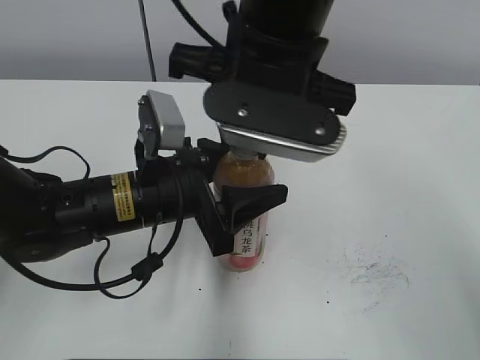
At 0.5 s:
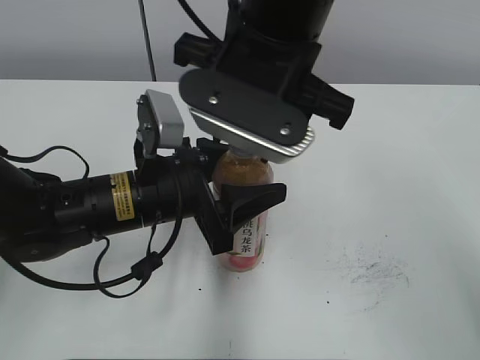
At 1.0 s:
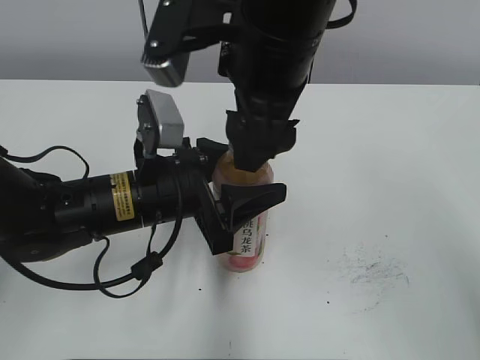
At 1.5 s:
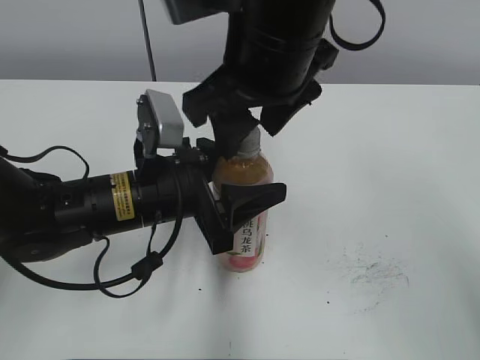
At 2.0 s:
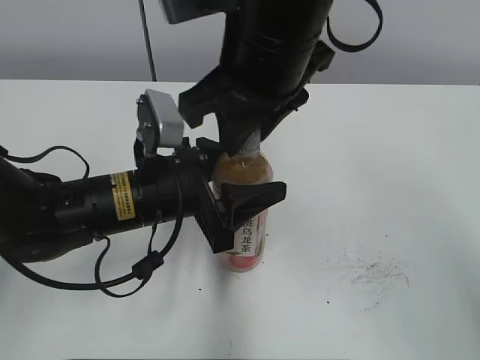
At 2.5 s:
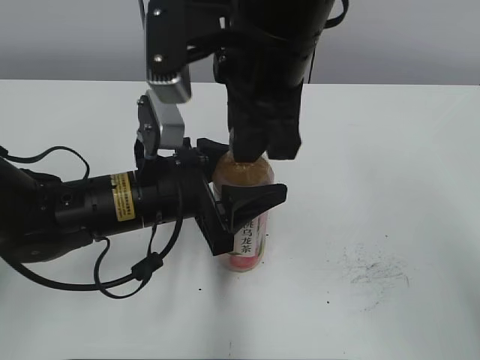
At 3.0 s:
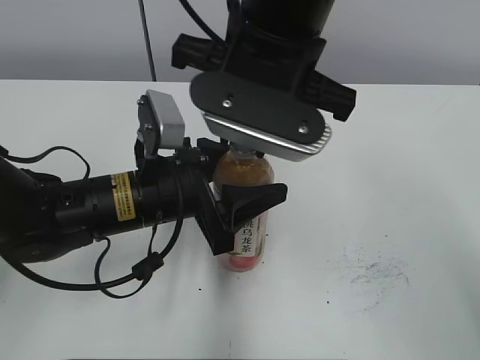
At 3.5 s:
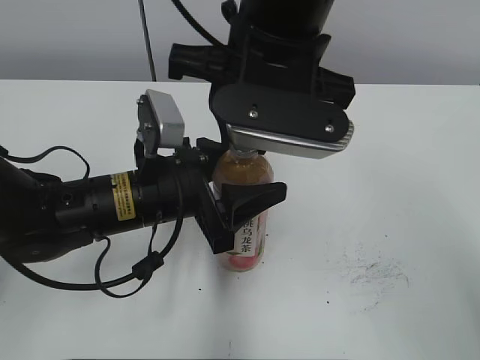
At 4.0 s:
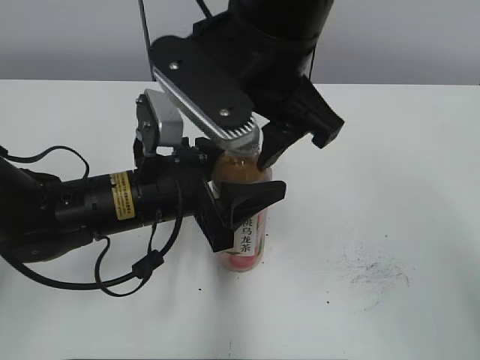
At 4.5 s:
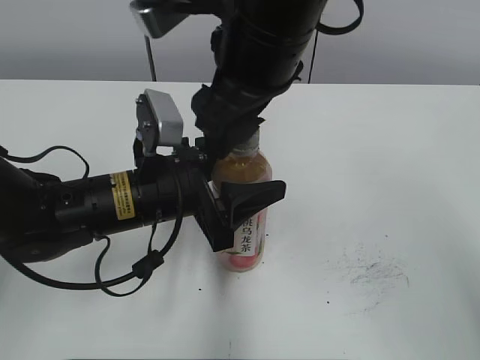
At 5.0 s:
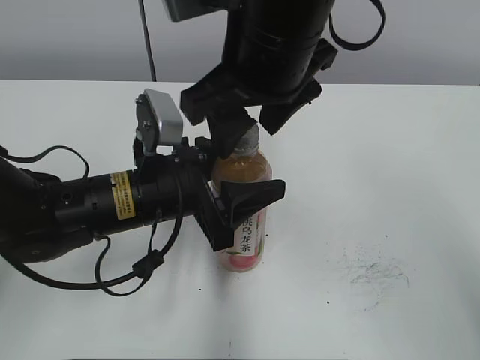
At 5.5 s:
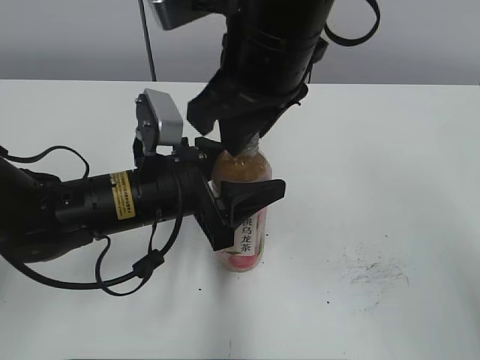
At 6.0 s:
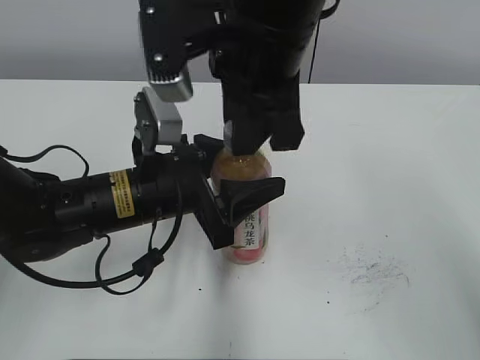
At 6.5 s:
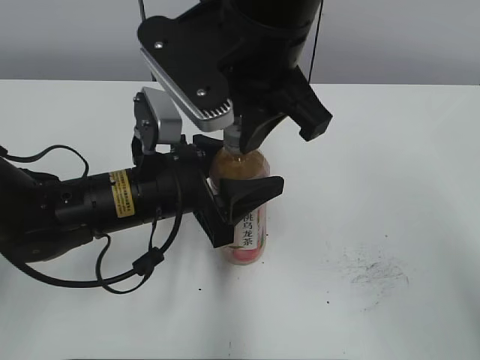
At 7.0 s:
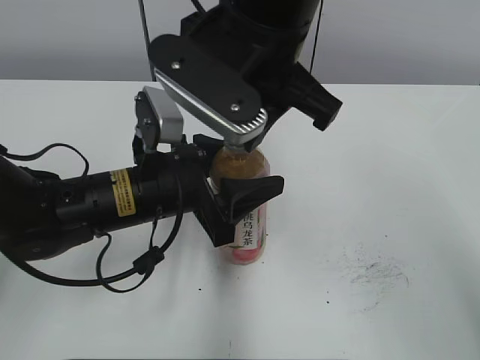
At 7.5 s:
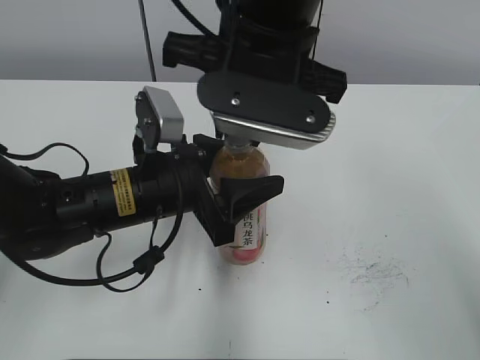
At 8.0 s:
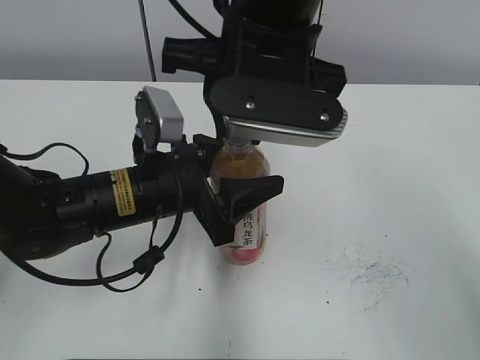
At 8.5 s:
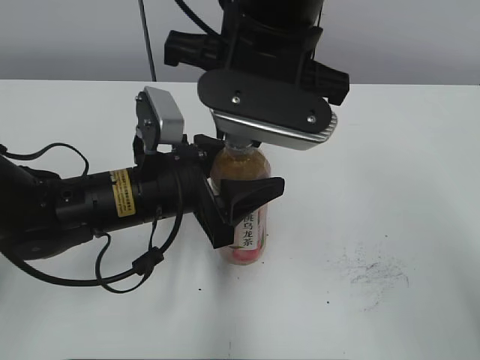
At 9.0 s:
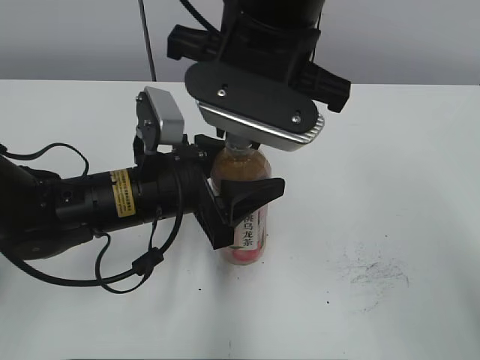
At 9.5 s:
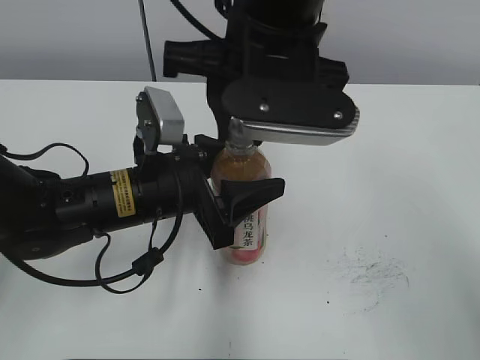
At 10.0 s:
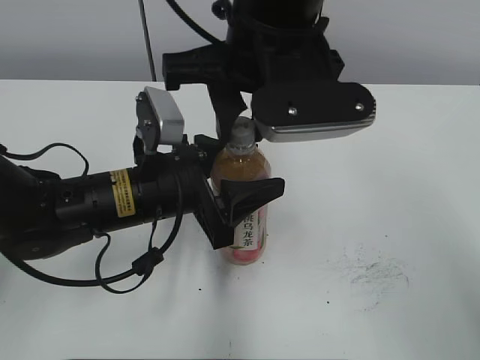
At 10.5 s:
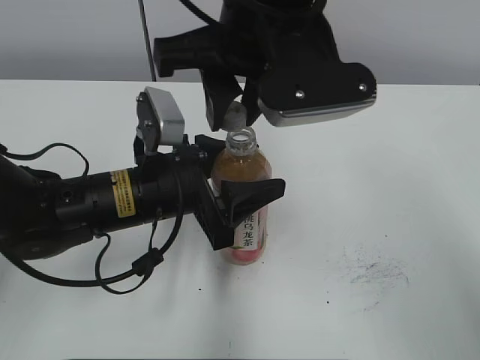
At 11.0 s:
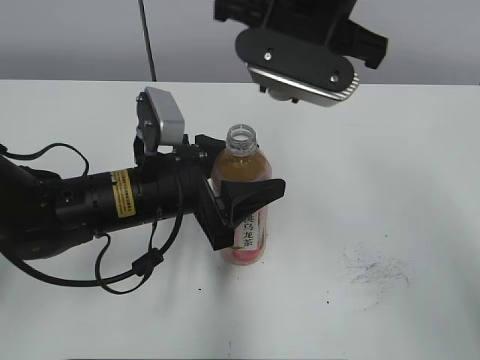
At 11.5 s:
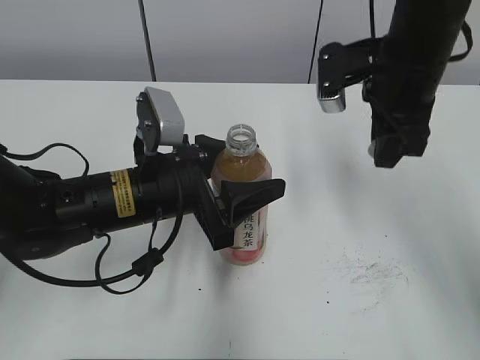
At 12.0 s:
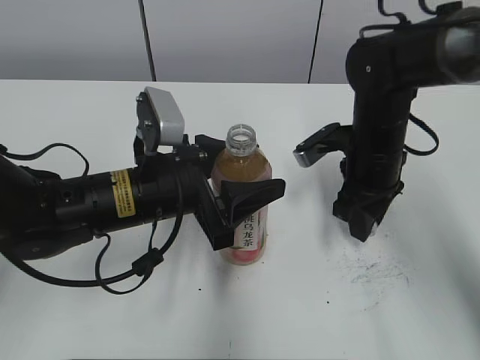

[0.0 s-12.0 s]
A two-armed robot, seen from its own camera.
Step, 0.0 to 10.0 s: Secure the Peach Oolong Tea with the left hand.
0.0 to 2.0 s: The right gripper opens, then closes once more.
2.0 to 4.0 s: The right gripper opens up.
4.0 to 6.0 s: The right gripper closes.
8.0 to 10.0 s: There are only small adjustments of the grippers.
10.0 to 12.0 s: The right gripper shifts approximately 25 cm downward, to the right and forward.

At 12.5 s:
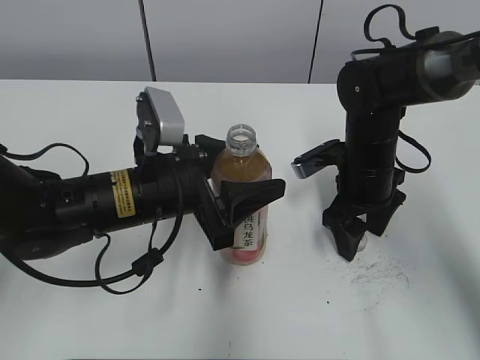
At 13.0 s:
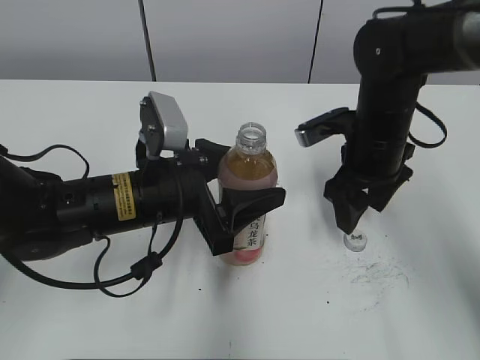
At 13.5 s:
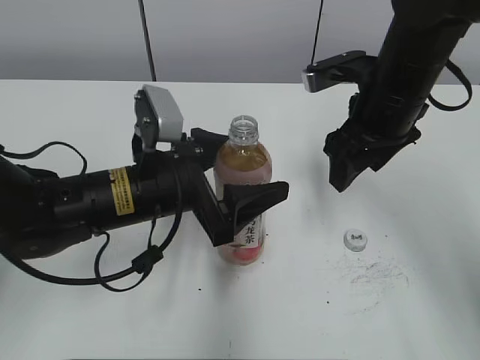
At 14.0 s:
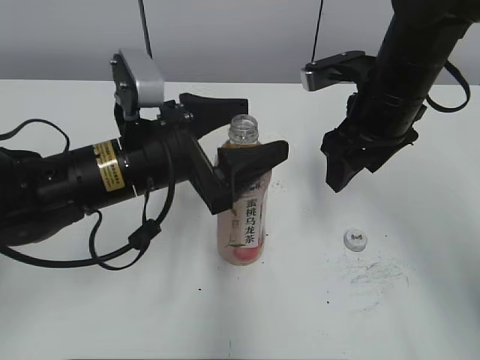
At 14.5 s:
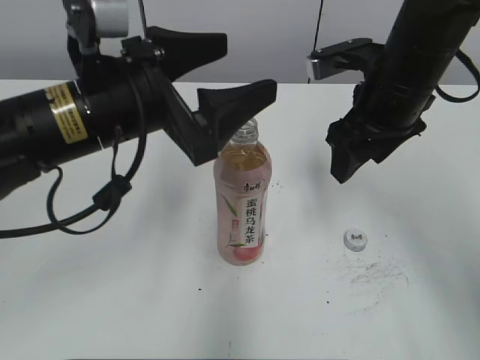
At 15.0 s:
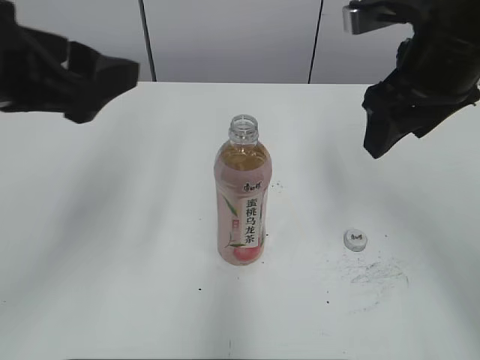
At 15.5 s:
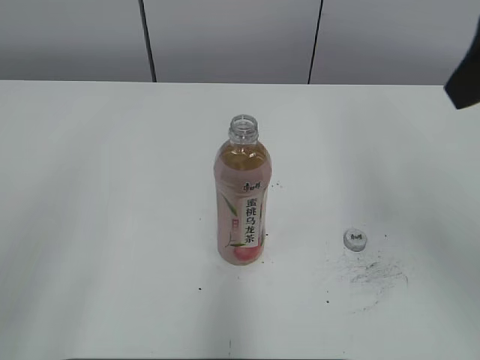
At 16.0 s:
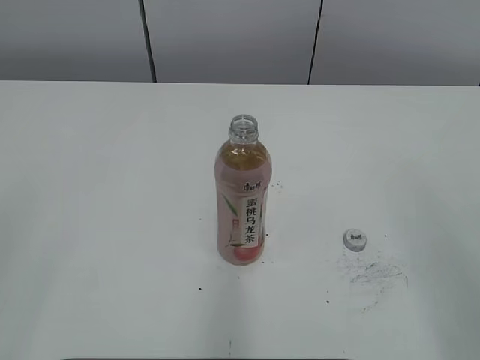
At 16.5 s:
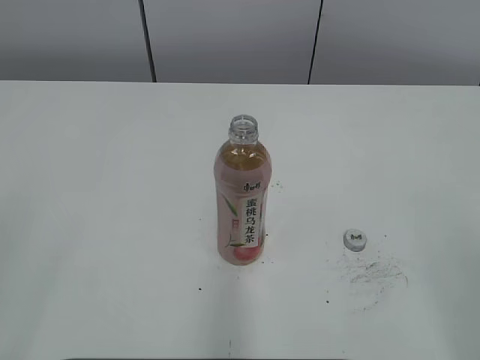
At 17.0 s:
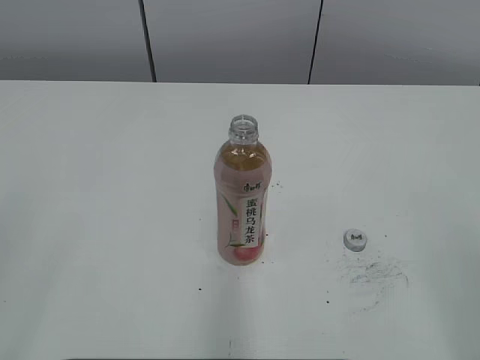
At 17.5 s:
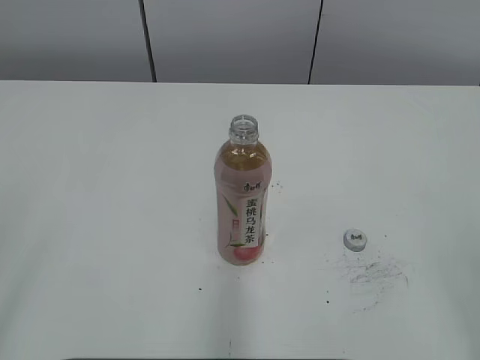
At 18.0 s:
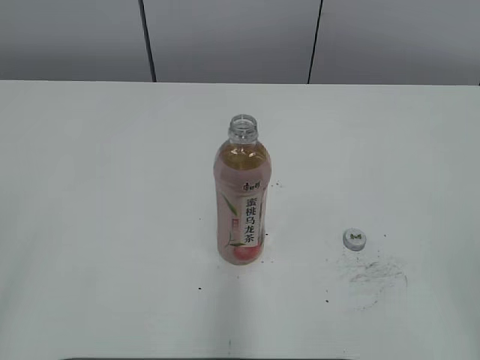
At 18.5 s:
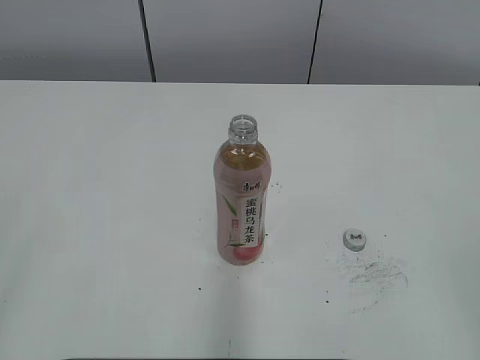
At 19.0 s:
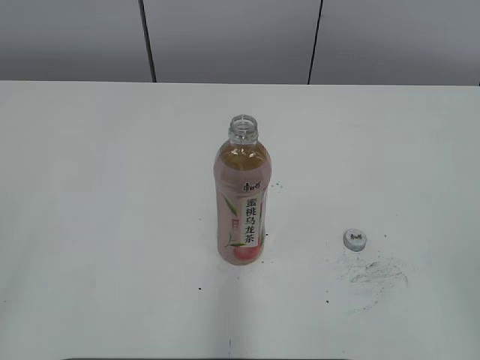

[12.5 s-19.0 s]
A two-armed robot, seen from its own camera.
12.5 to 14.5 s: The two grippers go about 10 cm upward. The left gripper opens.
14.5 to 17.0 s: The right gripper goes roughly 35 cm backward and to the right. Meanwhile the left gripper heads backward and to the left, covering about 30 cm.

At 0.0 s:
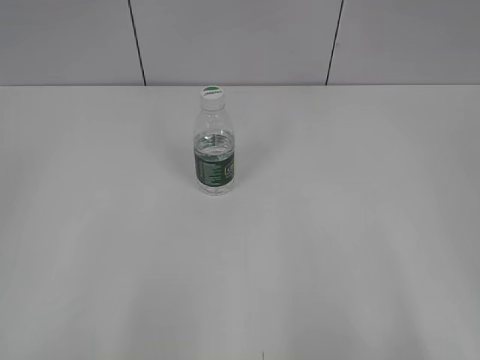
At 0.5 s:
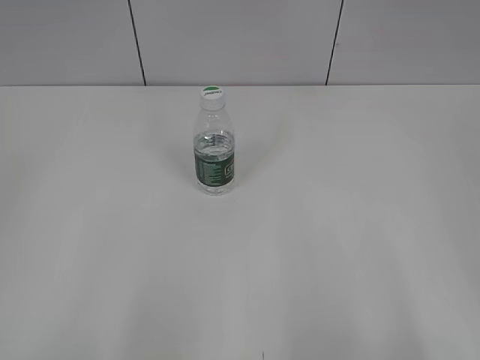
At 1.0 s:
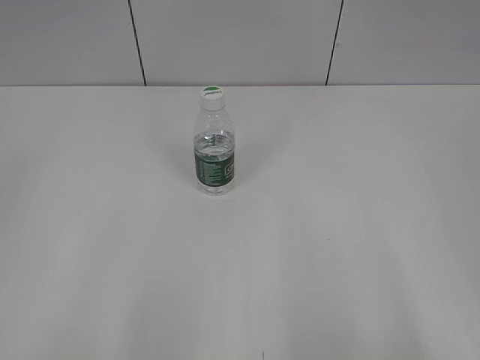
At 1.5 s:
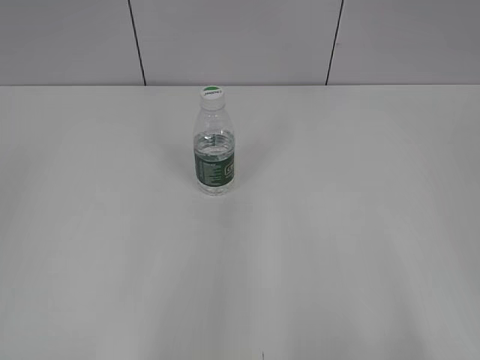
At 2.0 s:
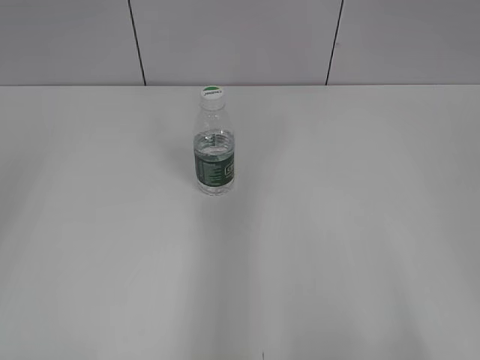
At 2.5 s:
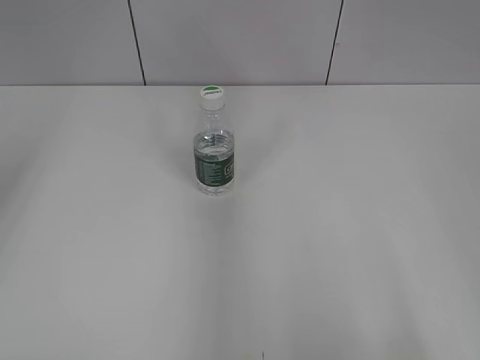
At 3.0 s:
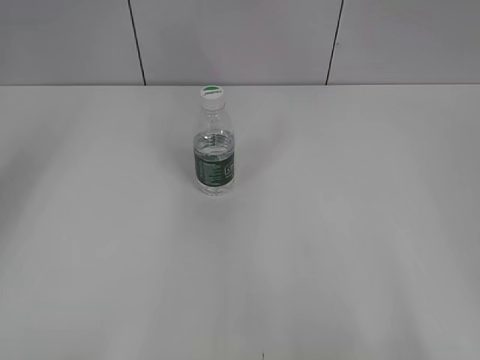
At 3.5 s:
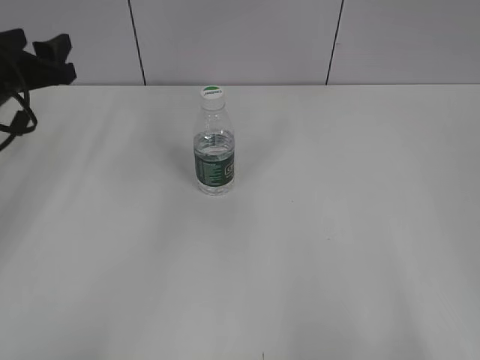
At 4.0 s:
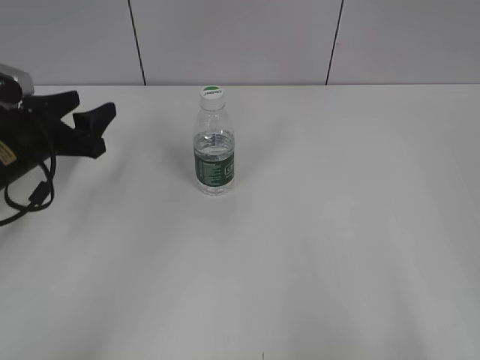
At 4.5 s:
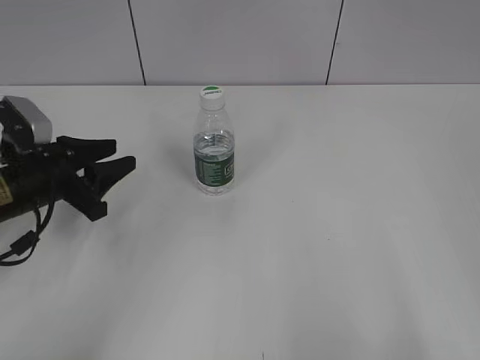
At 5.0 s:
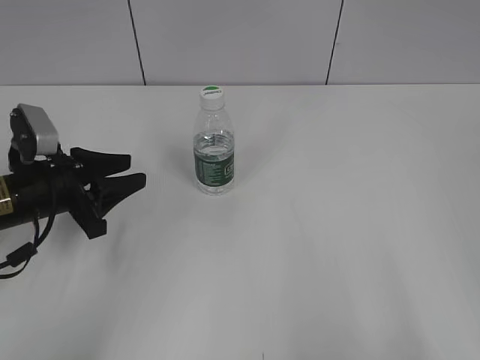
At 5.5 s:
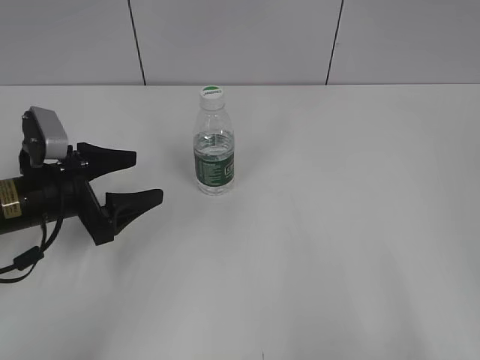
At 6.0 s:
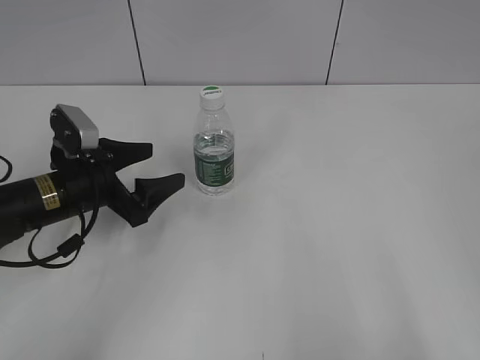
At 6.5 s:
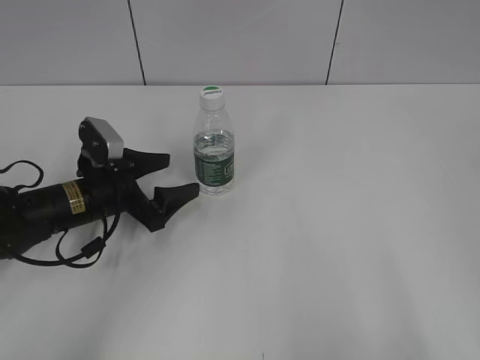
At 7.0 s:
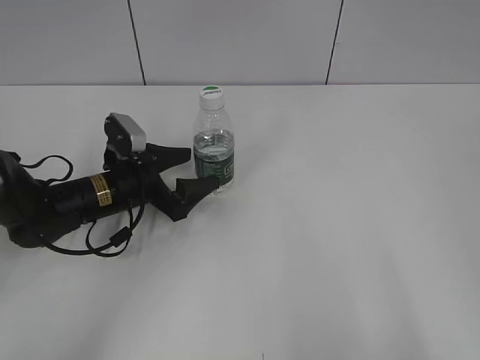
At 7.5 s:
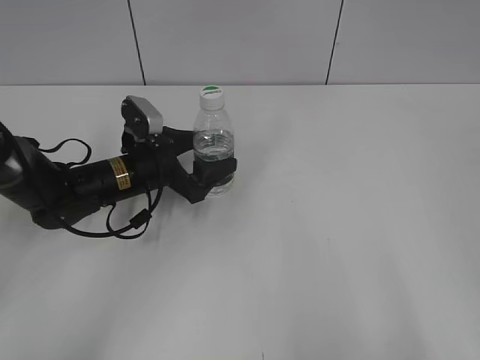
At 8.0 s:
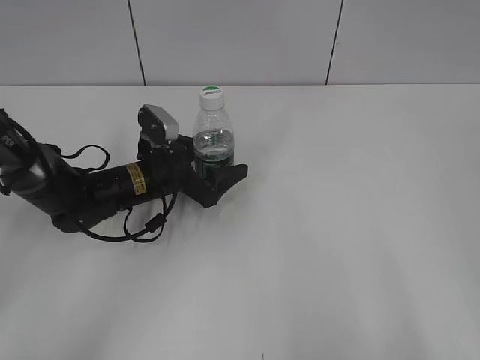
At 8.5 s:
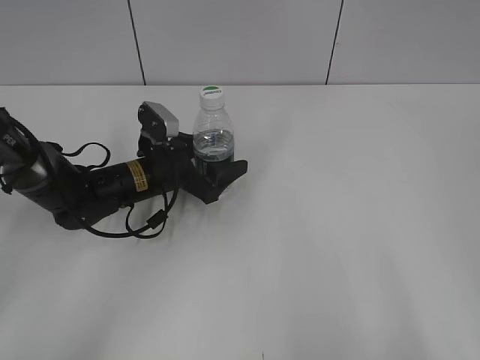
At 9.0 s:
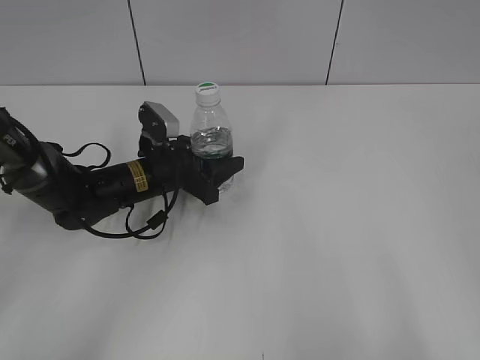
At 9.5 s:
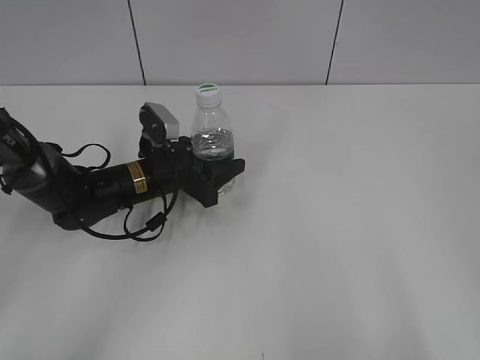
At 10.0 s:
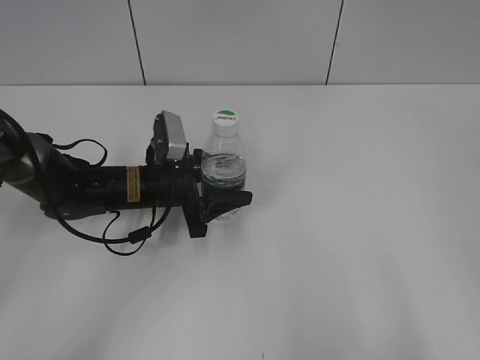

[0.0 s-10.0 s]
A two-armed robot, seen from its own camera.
Step, 0.0 to 9.0 s: Grasp the bottle and move it to the center of the table with the left gripper.
2.0 to 4.0 s: The left gripper is displaced downward and forward by some 40 cm.
4.0 to 6.0 s: The left gripper shifts roughly 5 cm to the right, and opens its fingers.
6.0 to 8.0 s: The left gripper is displaced to the right and forward by about 10 cm.
8.0 to 10.0 s: The left gripper closes its fingers.
